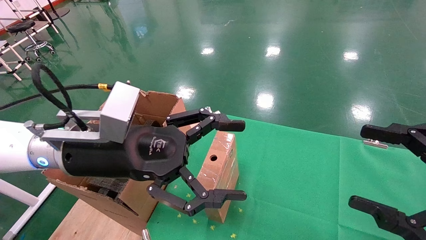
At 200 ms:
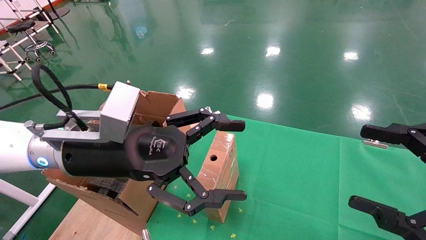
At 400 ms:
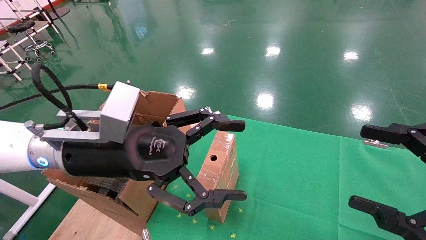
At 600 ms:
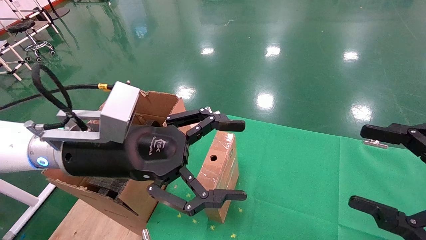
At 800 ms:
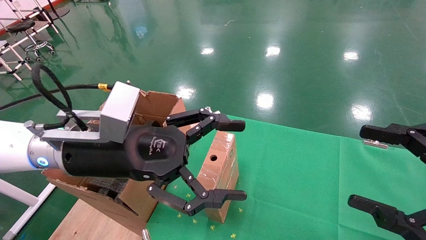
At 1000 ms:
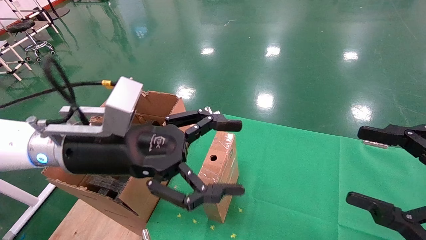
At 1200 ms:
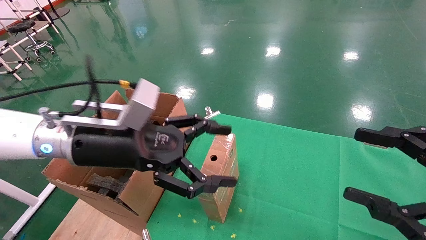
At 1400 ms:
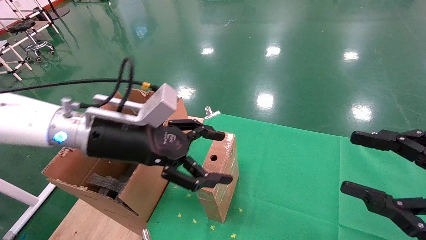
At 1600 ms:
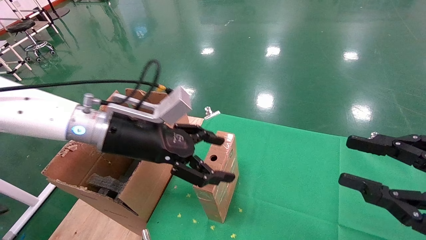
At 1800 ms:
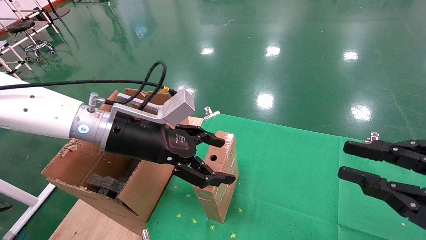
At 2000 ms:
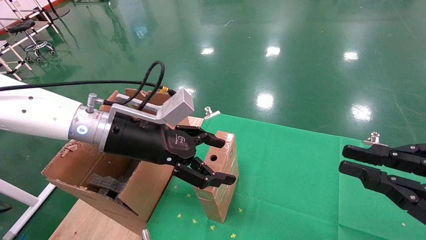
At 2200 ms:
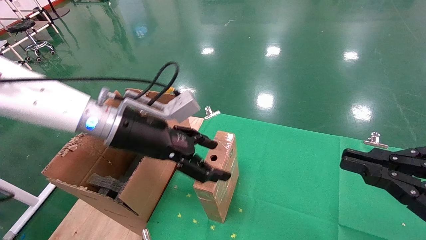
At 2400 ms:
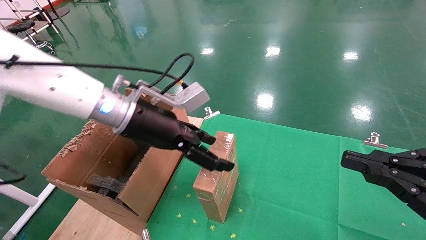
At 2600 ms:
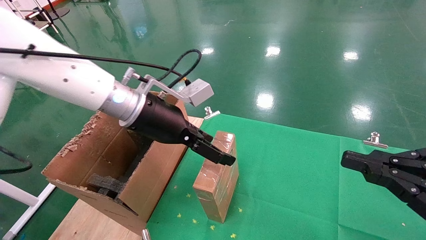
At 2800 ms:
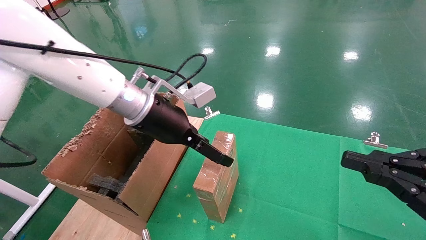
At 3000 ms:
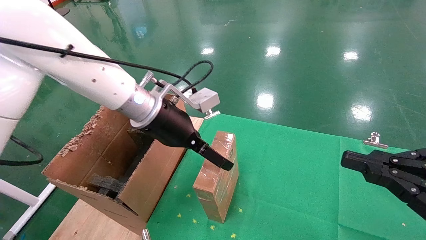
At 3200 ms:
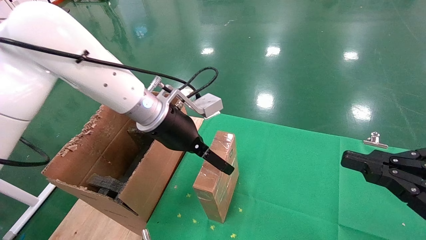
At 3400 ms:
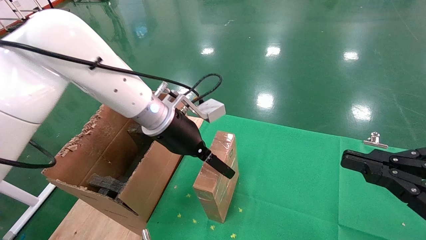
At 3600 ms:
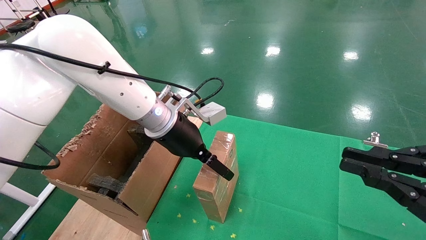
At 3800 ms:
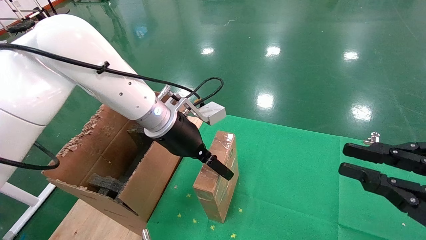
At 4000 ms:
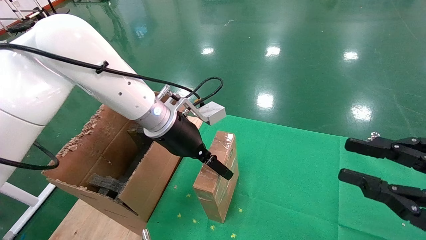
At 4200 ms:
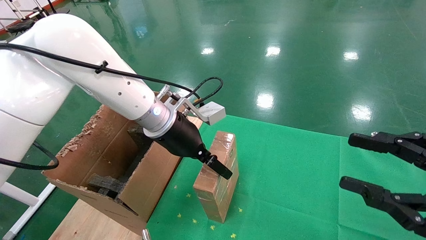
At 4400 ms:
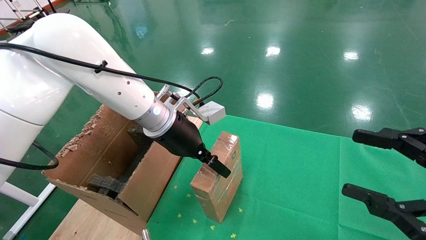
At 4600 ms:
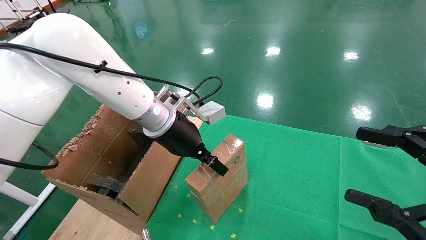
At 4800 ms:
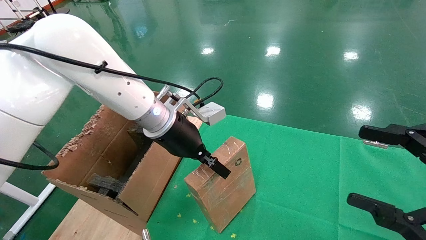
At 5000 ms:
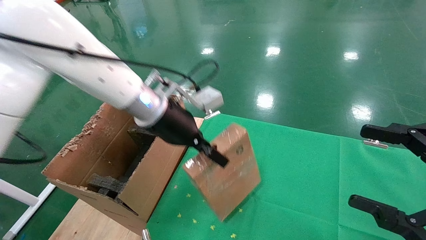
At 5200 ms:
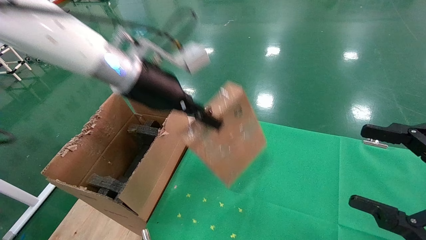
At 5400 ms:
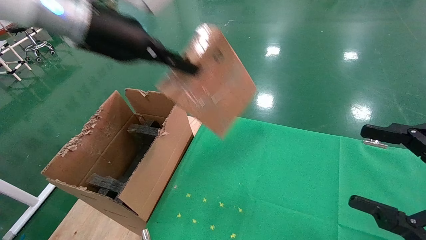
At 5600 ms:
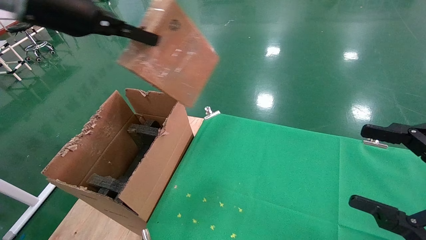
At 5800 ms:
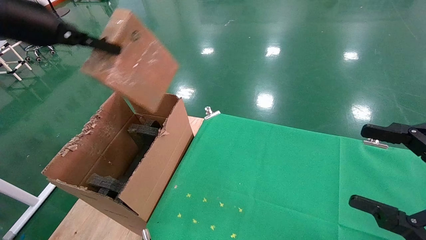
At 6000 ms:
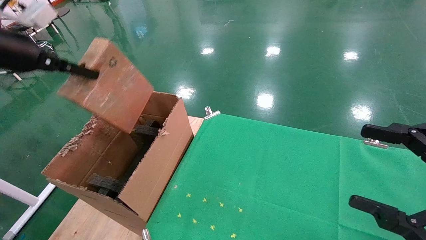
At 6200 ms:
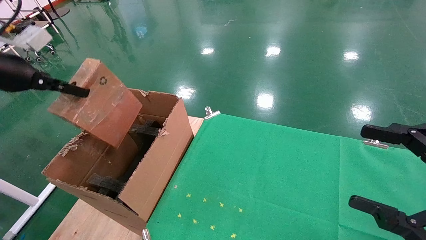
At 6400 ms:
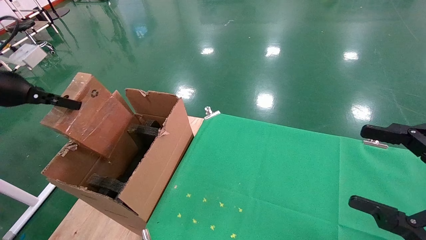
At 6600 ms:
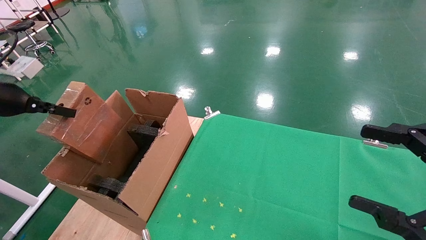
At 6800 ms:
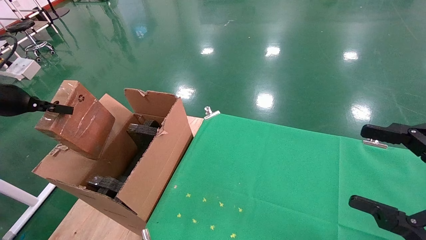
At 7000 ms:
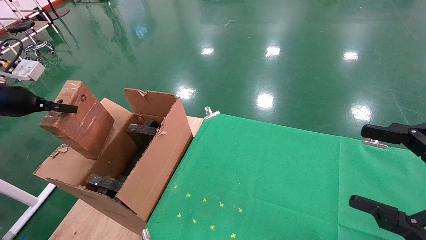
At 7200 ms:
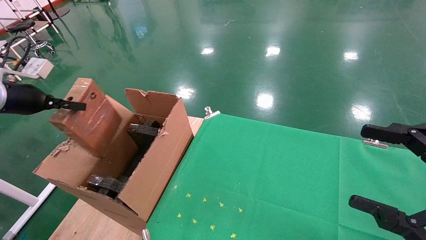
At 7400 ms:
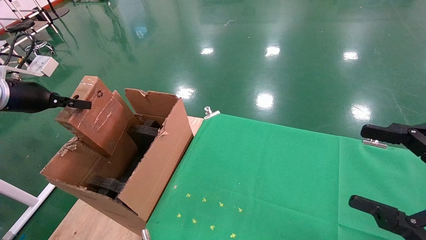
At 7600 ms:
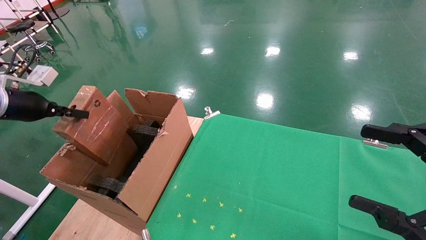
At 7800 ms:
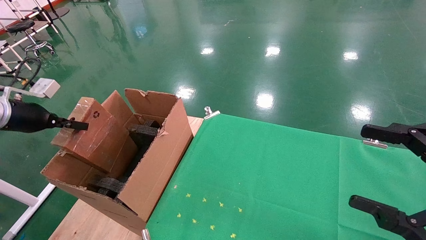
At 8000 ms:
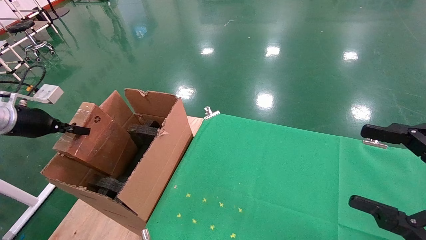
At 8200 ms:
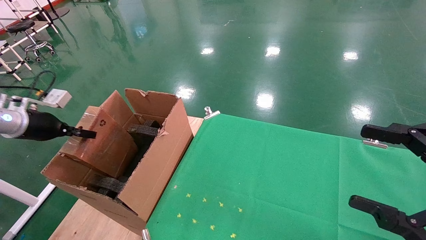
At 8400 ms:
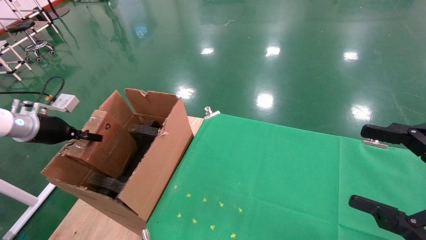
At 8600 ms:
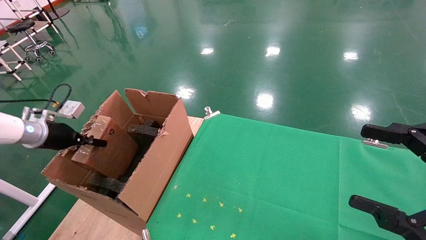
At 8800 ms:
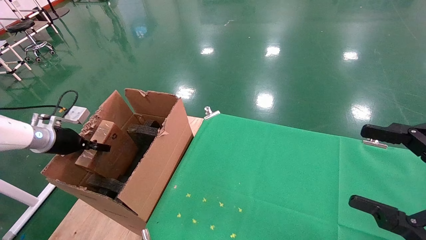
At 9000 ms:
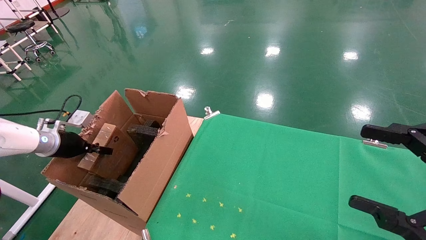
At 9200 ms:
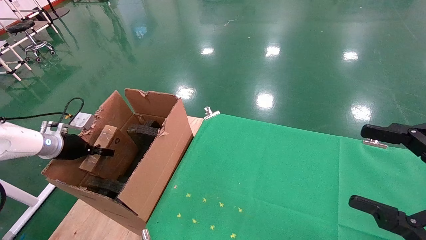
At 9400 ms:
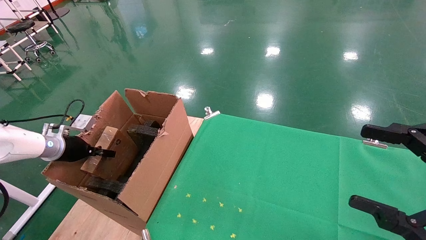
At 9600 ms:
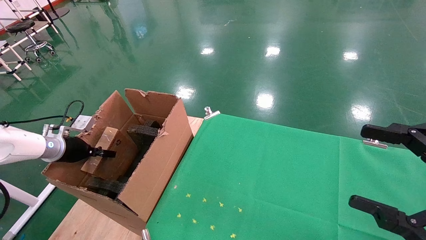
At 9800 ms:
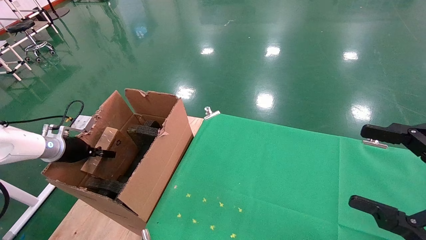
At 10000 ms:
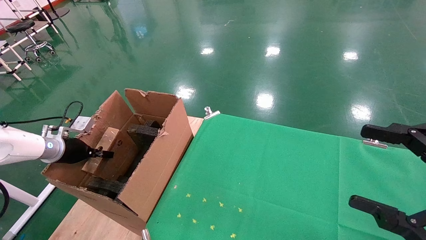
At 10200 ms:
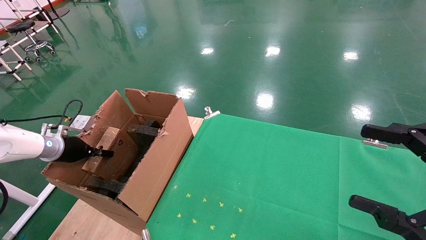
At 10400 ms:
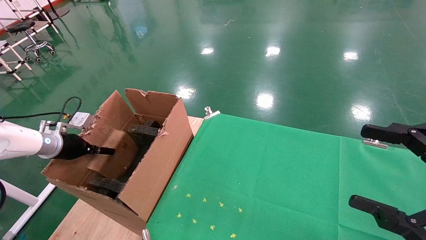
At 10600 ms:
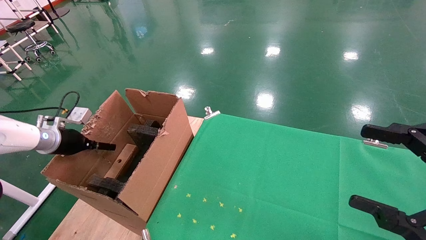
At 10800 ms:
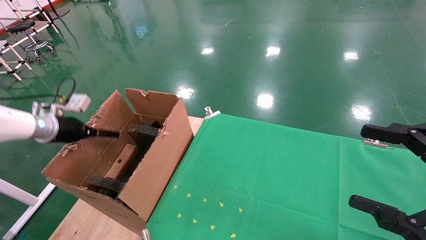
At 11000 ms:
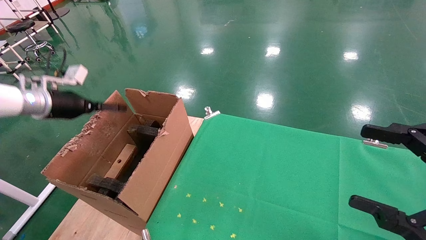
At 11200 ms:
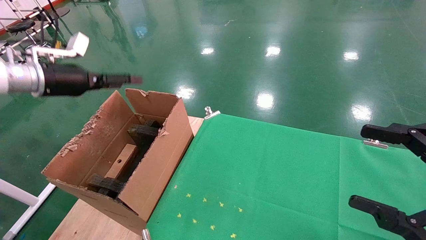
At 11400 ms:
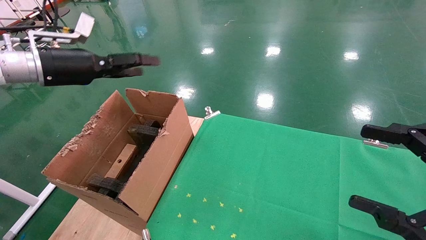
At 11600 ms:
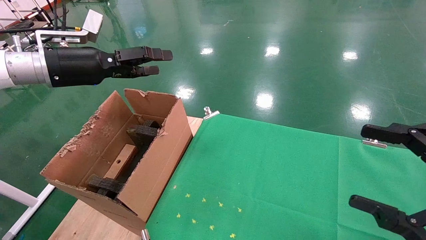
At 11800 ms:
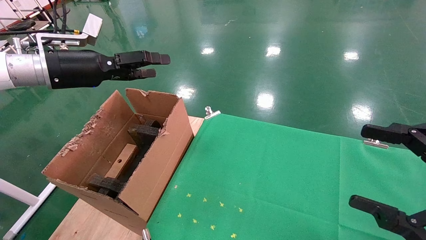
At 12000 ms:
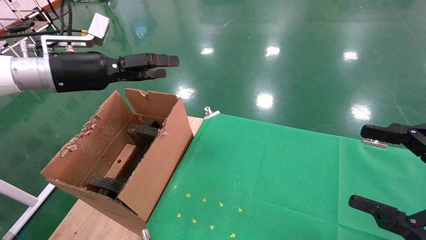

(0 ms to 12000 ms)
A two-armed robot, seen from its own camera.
Task of the whole recording: using a robotic arm to pick up a cardboard box and palace it the carton.
Step, 1000 ms - 4600 ms: Pick up the mouse and the power cord paper box.
Step, 4800 ms - 11000 ms: Place the mouse and the power cord paper box into the container.
0 ms - 1600 ms: The right gripper closes its fingers, while the left gripper heads forward, covering about 5 cm.
1600 ms - 3000 ms: The right gripper closes. Meanwhile the left gripper moves forward, approximately 5 cm.
3000 ms - 4400 ms: The left gripper closes, while the right gripper opens.
4400 ms - 6000 ms: The left gripper shifts about 30 cm to the left and upward, and closes its fingers. The right gripper opens.
6000 ms - 7600 ms: The left gripper heads downward and to the left, covering roughly 15 cm.
7600 ms - 9000 ms: The left gripper shifts about 15 cm downward and forward.
9000 ms - 10400 ms: The left gripper opens its fingers.
10400 ms - 12000 ms: The left gripper moves upward and to the right, roughly 25 cm, and opens its fingers.

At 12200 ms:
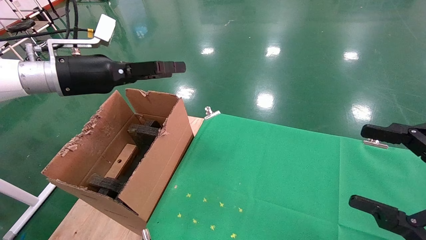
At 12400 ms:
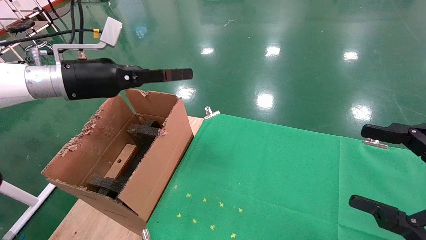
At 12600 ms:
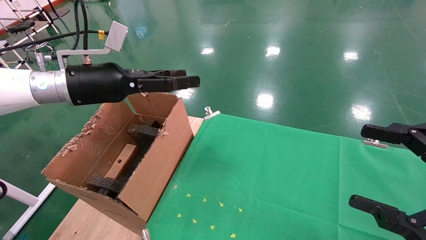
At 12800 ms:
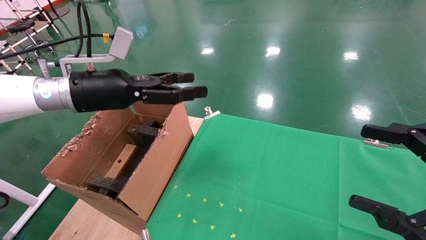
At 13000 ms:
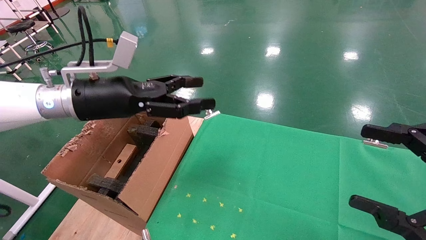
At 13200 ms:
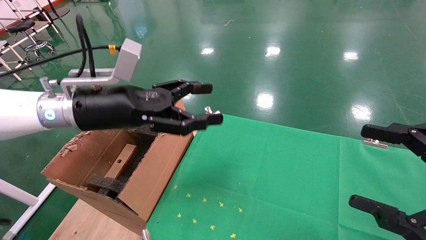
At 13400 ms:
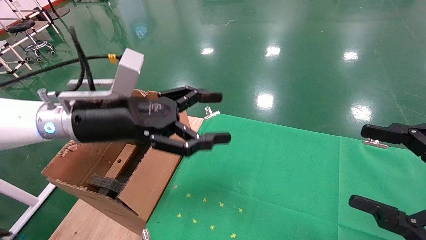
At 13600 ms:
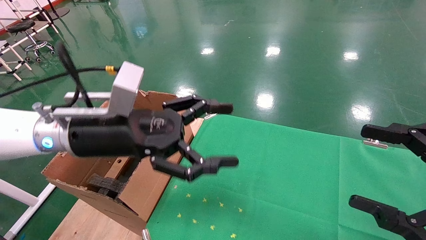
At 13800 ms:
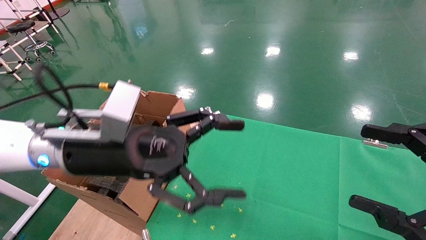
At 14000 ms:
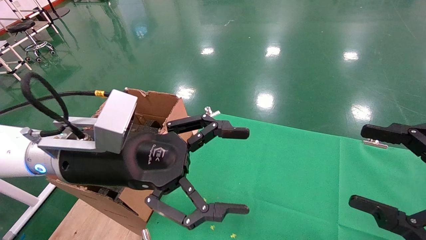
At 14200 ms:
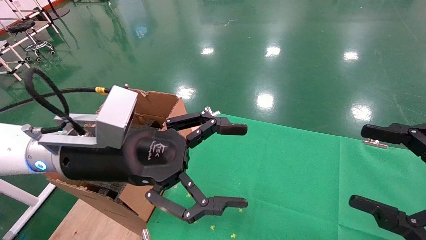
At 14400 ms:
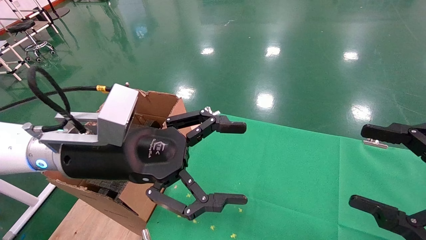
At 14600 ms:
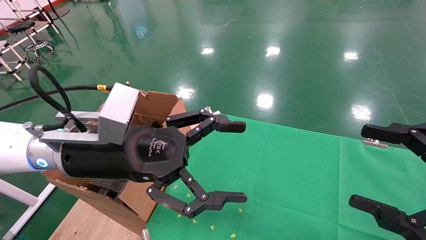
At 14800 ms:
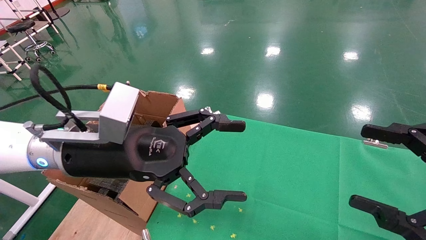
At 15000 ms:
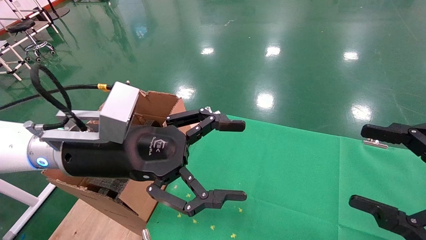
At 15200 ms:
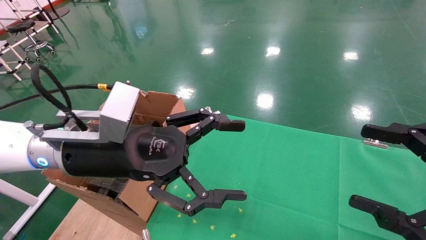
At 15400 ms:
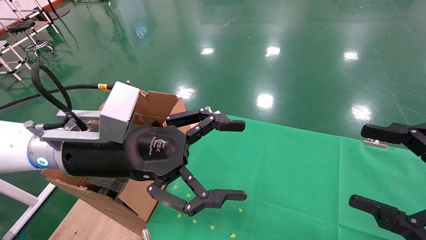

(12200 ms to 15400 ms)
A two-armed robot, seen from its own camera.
Task of the whole recording: using a robotic arm to pick up a cardboard box and palace it the carton.
12200 ms - 13800 ms: The left gripper shifts about 20 cm to the right, backward and downward.
13800 ms - 15400 ms: Both grippers stay about where they are.
